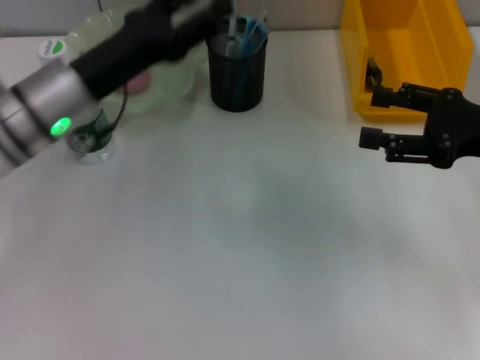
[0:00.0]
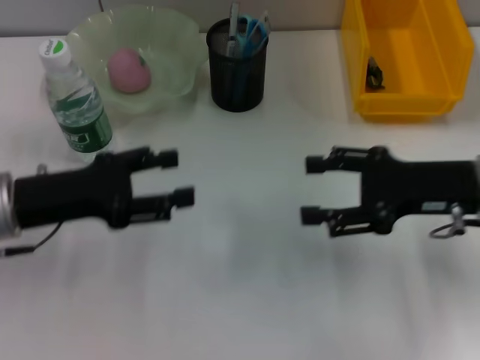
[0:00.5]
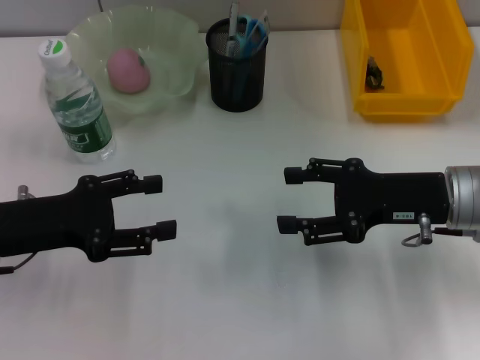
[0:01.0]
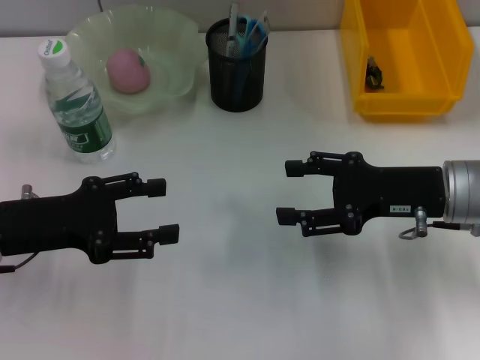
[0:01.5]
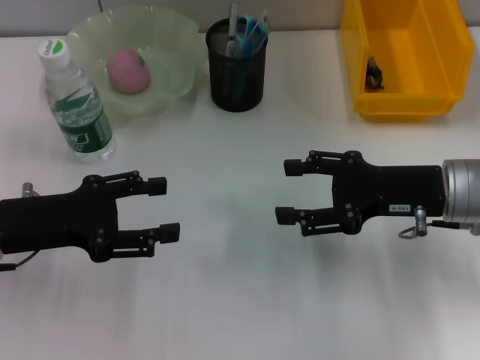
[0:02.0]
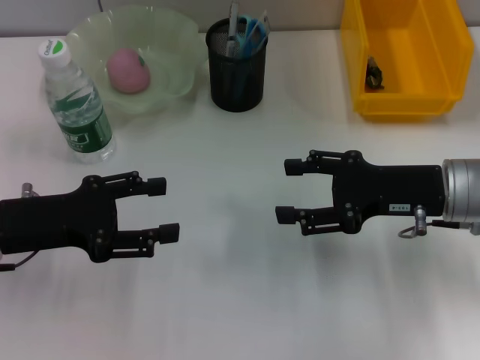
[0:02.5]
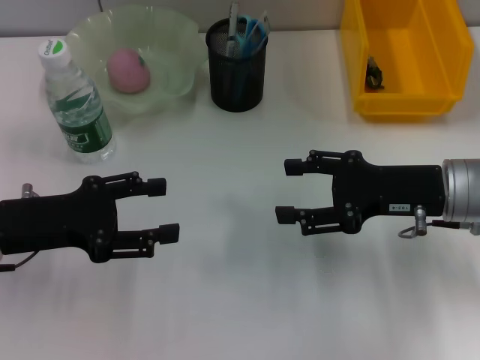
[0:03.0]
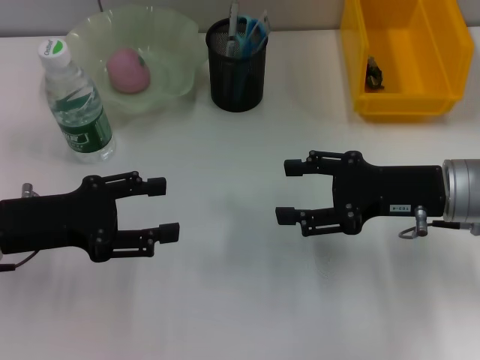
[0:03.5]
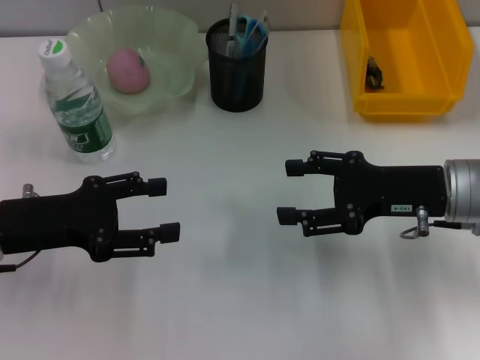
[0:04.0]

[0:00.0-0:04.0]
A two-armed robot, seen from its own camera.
0:00.0 to 0:02.0: The right gripper moves to the left, some 5 cm, while the left gripper travels backward and to the left by some 10 cm.
0:02.0 to 0:04.0: Both grippers stay about where they are.
